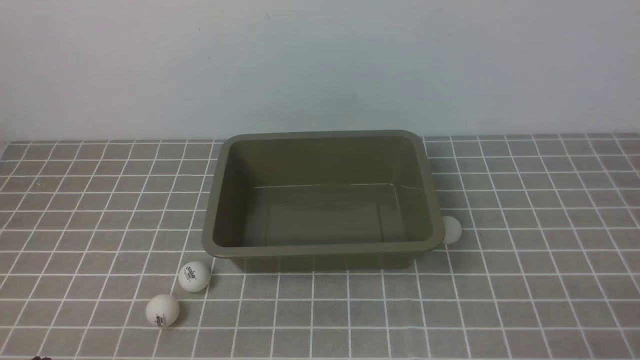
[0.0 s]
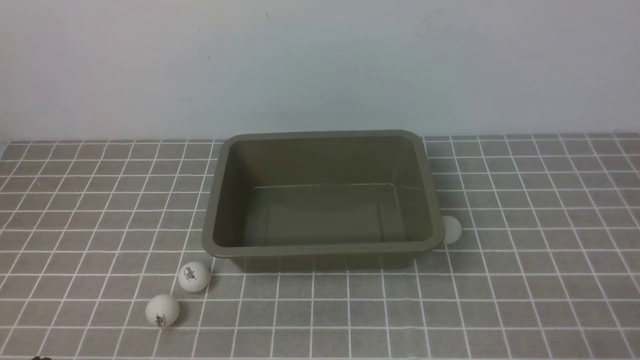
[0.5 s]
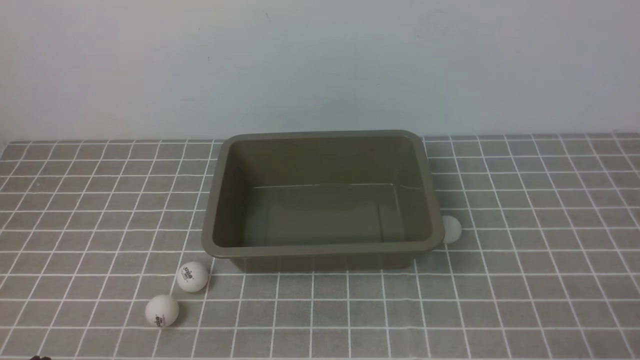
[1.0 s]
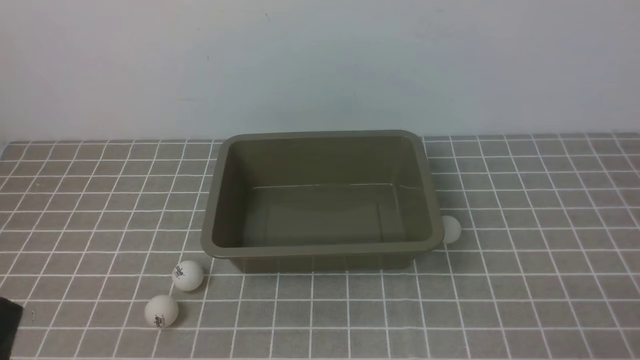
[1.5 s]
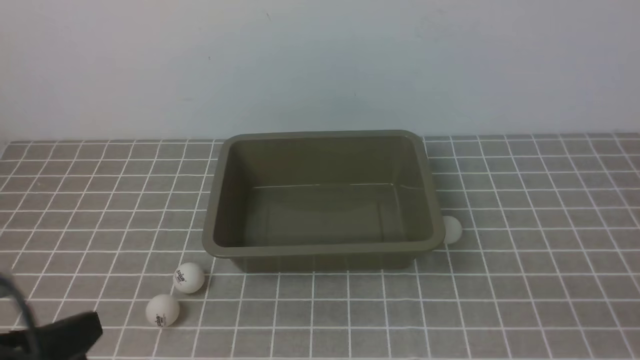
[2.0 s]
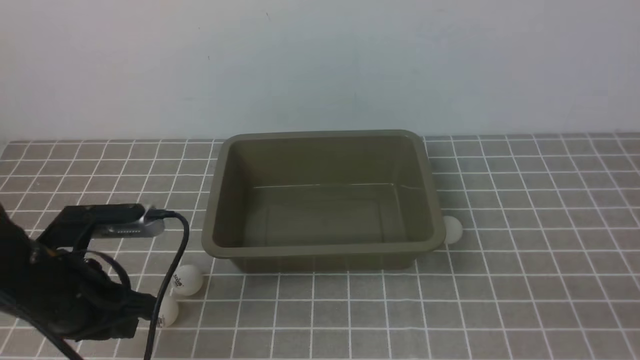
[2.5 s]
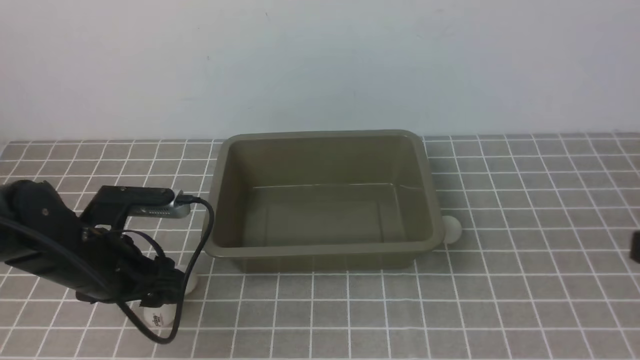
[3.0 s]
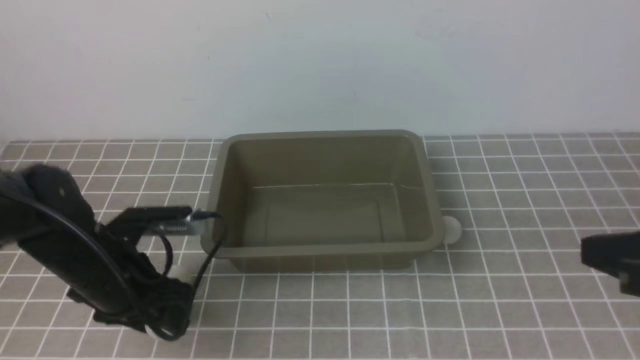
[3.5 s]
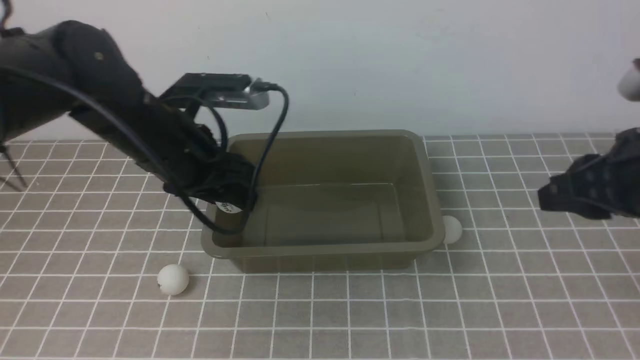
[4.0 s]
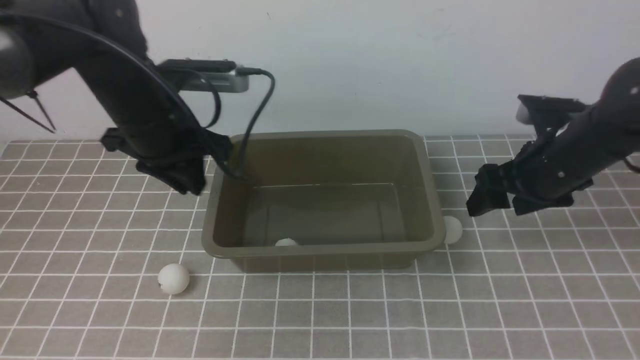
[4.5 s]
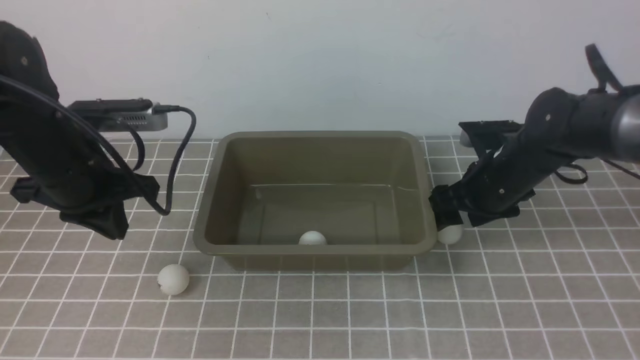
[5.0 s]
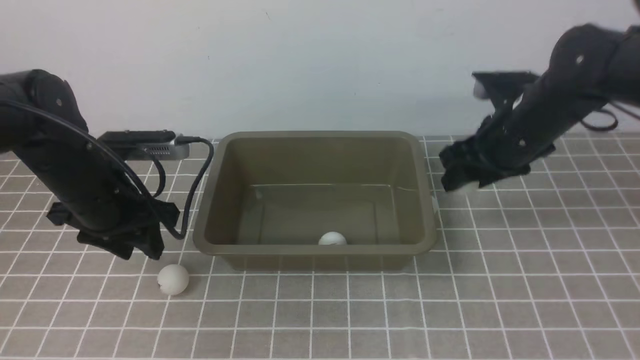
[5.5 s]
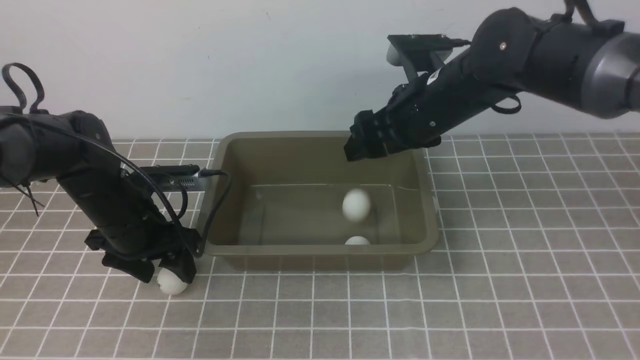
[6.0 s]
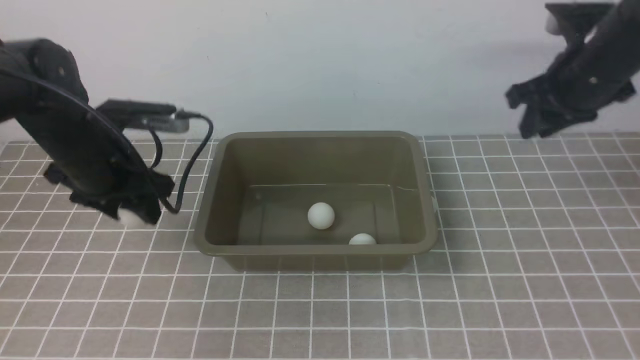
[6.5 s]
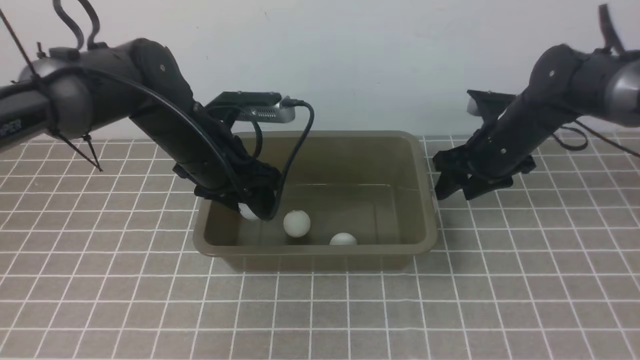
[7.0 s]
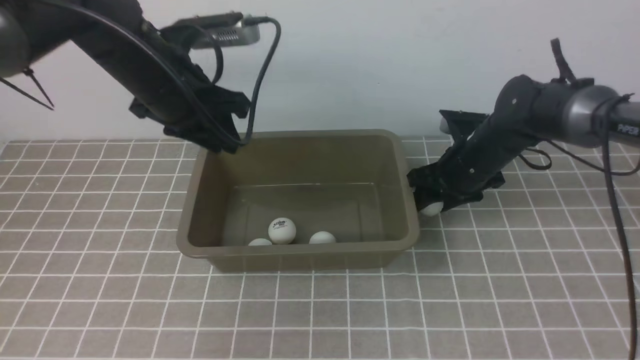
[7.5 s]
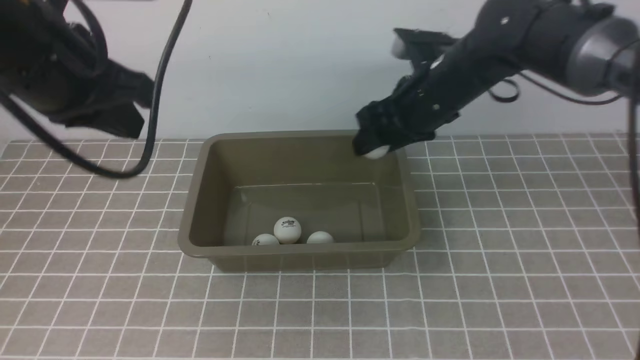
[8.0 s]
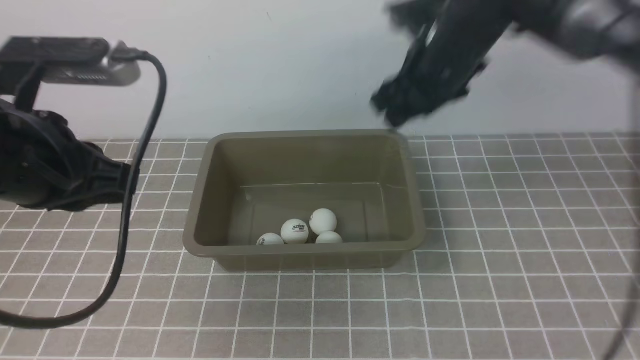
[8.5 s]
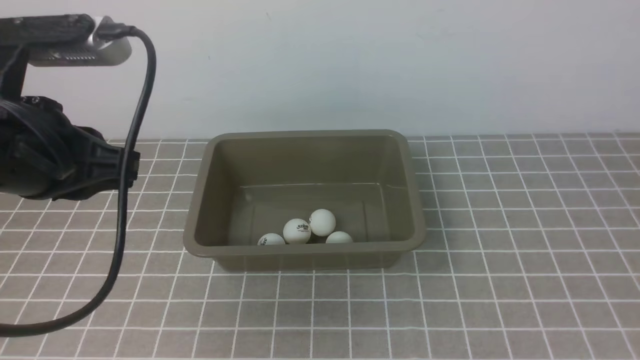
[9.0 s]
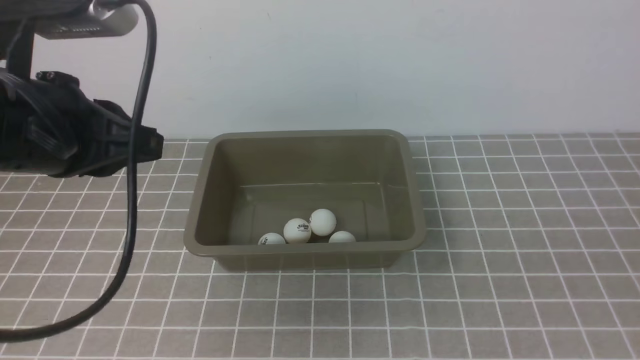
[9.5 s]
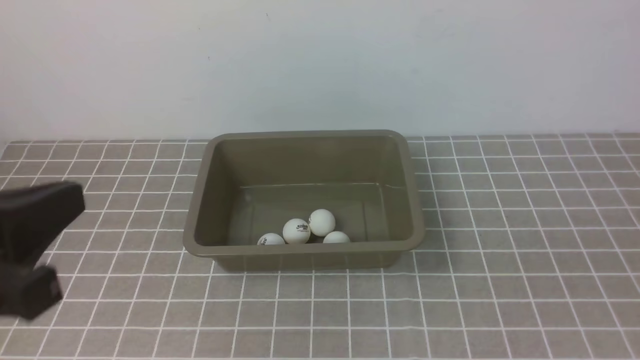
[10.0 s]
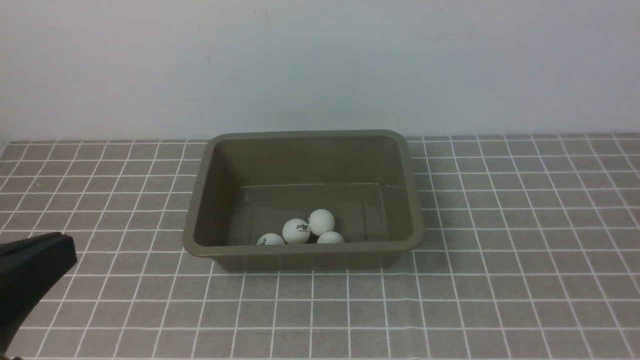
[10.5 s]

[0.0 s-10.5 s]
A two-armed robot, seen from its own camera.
Step, 0.0 to 3.5 s: use the left arm to clamp the table tennis ball closest to it.
Step, 4.5 to 5.0 s: use the right arm to clamp the table tennis ball closest to it.
Step, 5.5 to 6.0 s: use the right arm to put the table tennis ball into the box.
0.0 to 2.0 s: The left gripper goes some 10 cm upward.
2.0 to 4.0 s: The right gripper shifts roughly 20 cm forward and upward, and opens up. The left gripper is displaced forward by about 25 cm, and opens up.
4.0 to 6.5 s: The left gripper is displaced to the left by roughly 5 cm, reaches approximately 10 cm downward, then returns, and closes, then reopens. Meanwhile the right gripper heads forward, covering about 15 cm, and opens and closes again.
6.5 to 8.5 s: The right gripper shifts roughly 15 cm to the left and upward; the left gripper travels backward and upward by some 20 cm, and closes its fingers.
8.5 to 10.5 s: The right gripper travels backward and to the right by some 40 cm, and closes up; the left gripper travels backward by approximately 15 cm.
